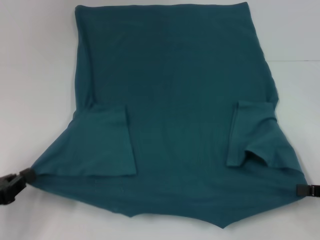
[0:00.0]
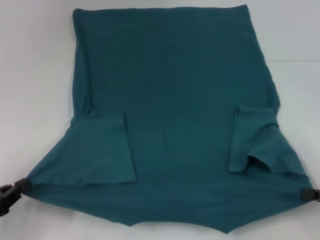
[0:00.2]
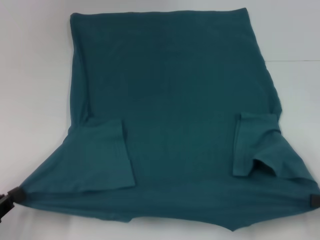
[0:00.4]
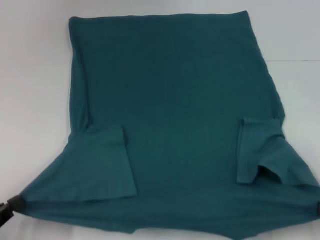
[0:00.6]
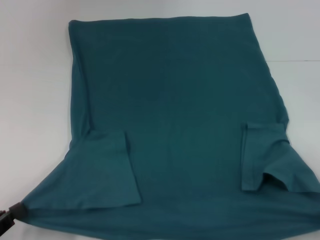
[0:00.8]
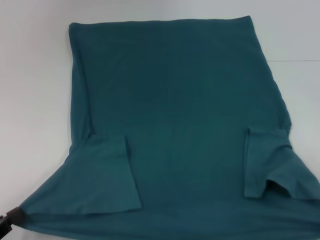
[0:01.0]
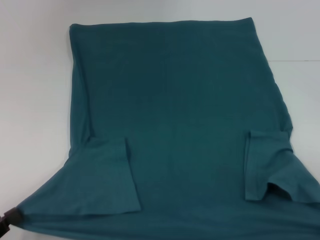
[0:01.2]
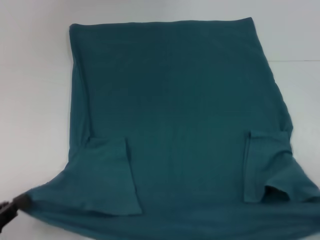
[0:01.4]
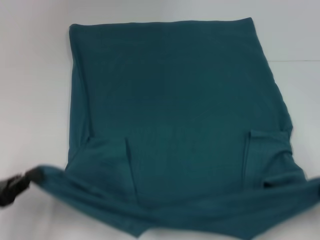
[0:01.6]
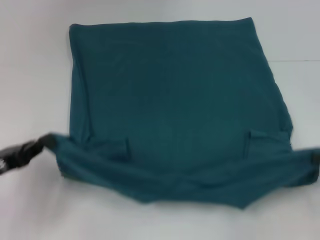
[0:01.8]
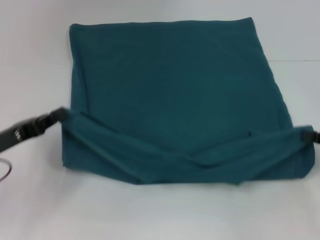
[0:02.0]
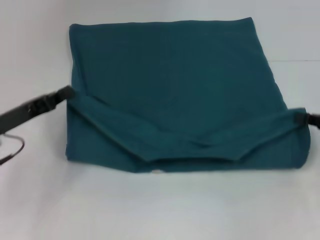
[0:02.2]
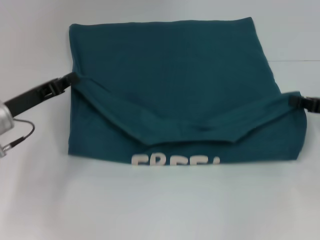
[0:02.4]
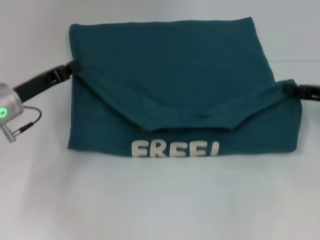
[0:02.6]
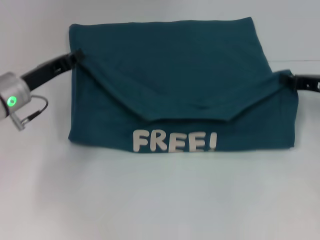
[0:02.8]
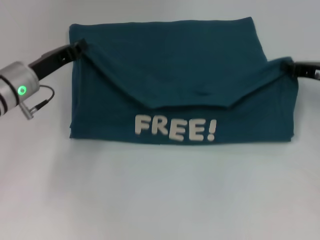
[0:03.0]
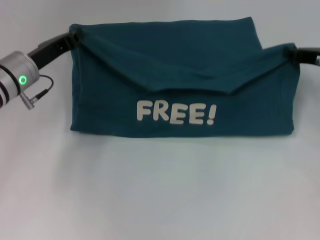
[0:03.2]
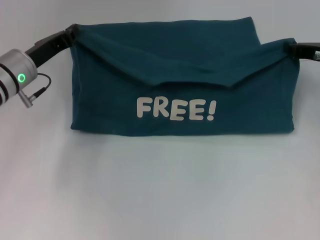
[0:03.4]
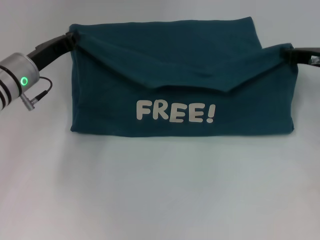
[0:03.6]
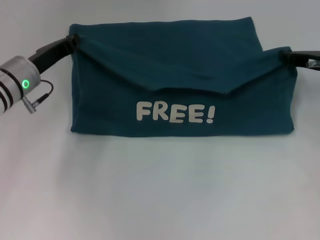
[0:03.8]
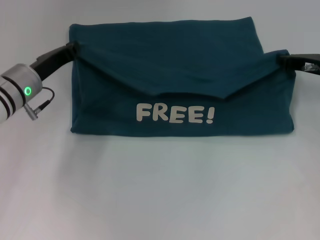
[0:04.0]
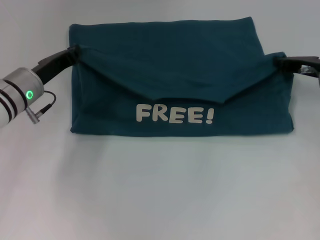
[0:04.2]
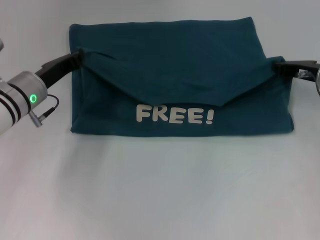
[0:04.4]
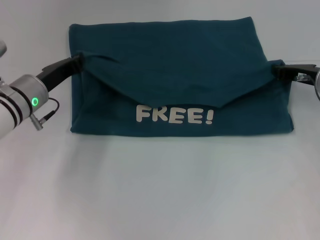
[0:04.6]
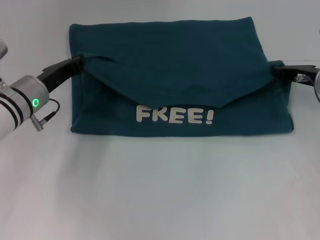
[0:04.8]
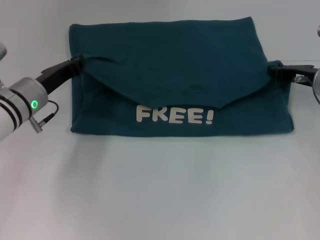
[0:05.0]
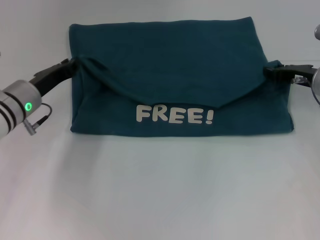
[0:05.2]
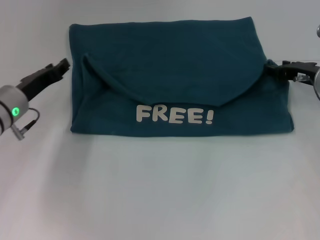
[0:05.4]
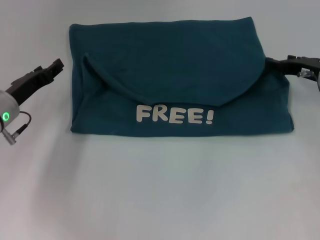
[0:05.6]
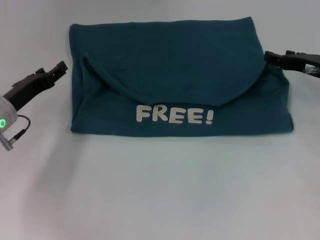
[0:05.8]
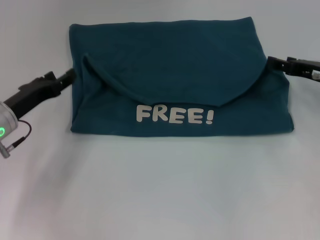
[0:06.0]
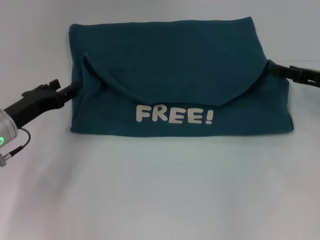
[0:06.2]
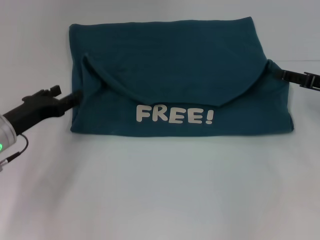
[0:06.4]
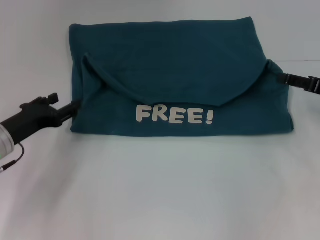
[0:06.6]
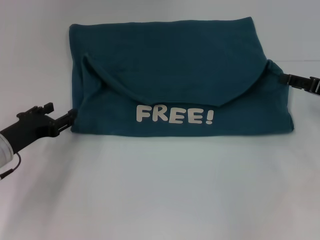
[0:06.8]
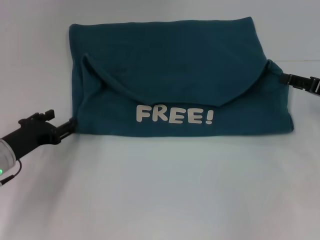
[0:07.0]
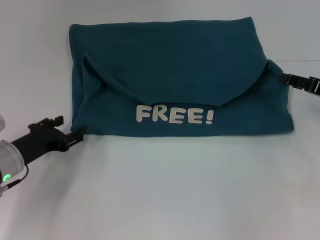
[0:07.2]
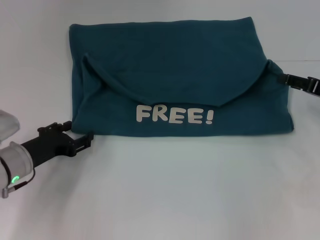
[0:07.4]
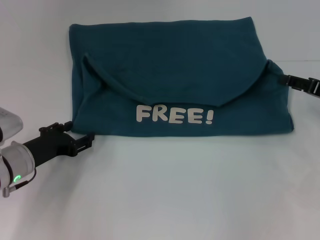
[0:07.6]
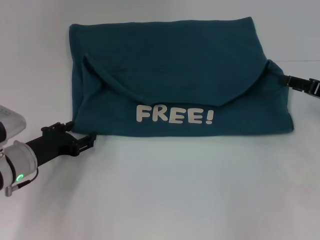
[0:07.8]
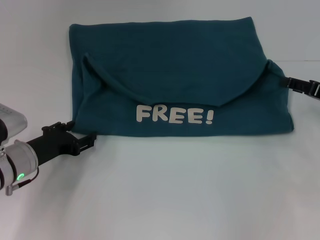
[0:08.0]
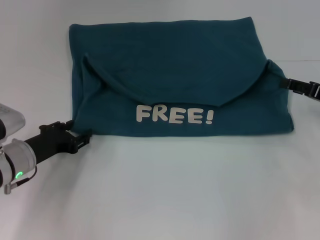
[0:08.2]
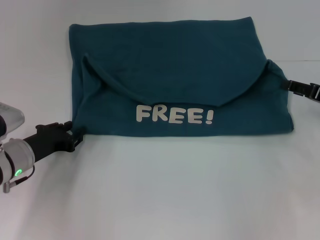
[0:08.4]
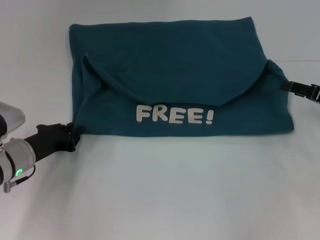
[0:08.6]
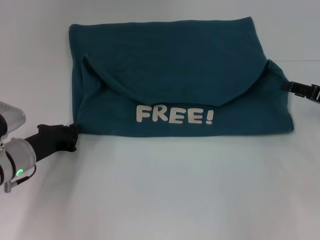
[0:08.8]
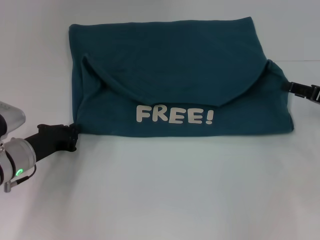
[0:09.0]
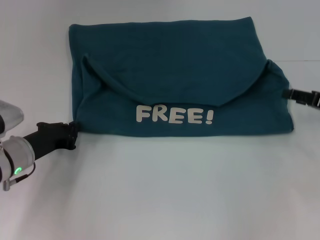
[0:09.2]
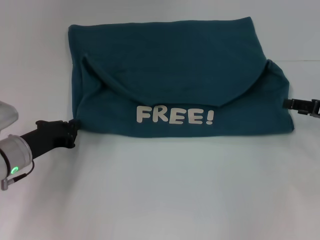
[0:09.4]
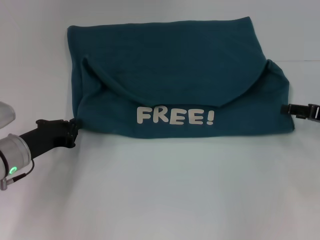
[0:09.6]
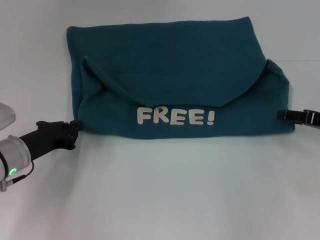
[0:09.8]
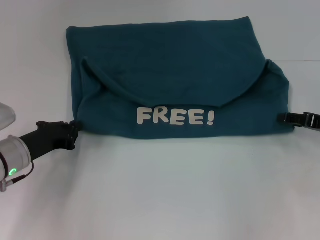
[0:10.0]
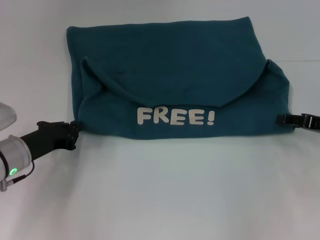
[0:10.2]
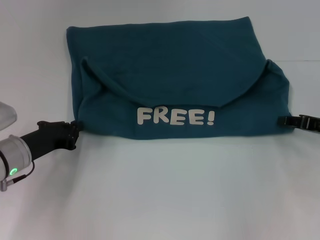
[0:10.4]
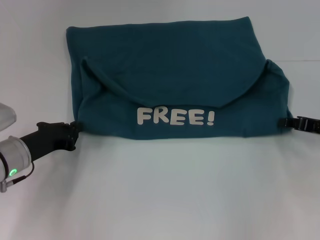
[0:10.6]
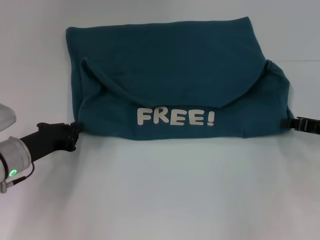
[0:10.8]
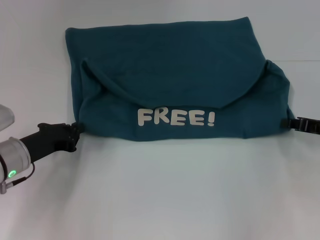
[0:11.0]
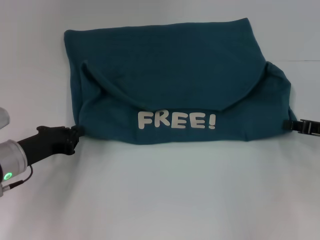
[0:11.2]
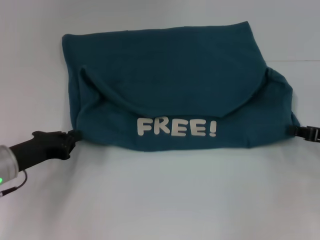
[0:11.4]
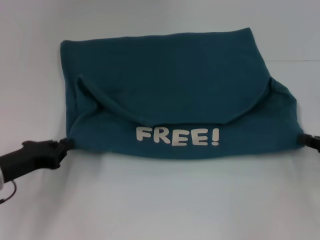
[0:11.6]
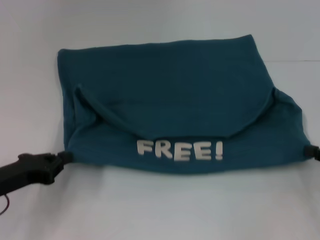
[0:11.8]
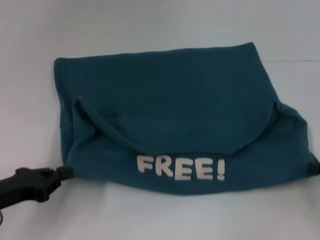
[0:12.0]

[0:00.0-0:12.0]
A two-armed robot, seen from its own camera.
Step, 0:00.0 to 0:05.4: Fold the clothes to the left.
Step, 0:00.0 to 0:05.4: Fold the clothes to the right.
0:00.0 to 0:01.6: The left gripper goes backward and returns, roughly 10 cm each way.
0:01.6 to 0:03.0: The left gripper moves forward and to the right, approximately 25 cm. The right gripper moves forward, about 20 cm.
0:03.0 to 0:04.4: The grippers stay close to where they were, moving slightly.
0:04.4 to 0:06.0: The right gripper opens, while the left gripper ends up approximately 5 cm from where it was, and opens its fingers.
0:06.0 to 0:07.6: The left gripper changes place by some 5 cm. The right gripper ends up approximately 5 cm from where it was.
0:07.6 to 0:09.0: The left gripper closes up.
0:09.0 to 0:10.4: The grippers stay close to where they were, moving slightly.
0:10.4 to 0:12.0: The grippers both shift backward by about 10 cm. The right gripper closes its fingers.

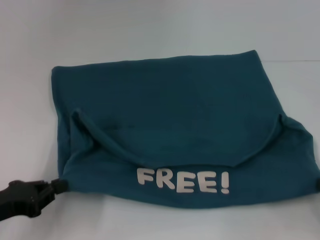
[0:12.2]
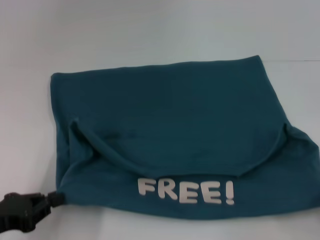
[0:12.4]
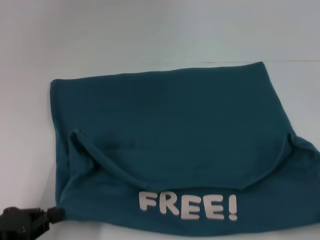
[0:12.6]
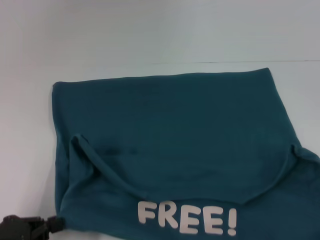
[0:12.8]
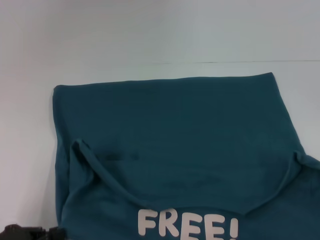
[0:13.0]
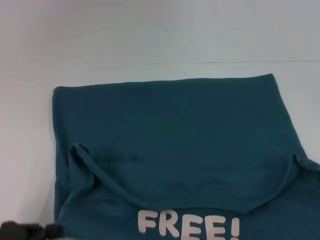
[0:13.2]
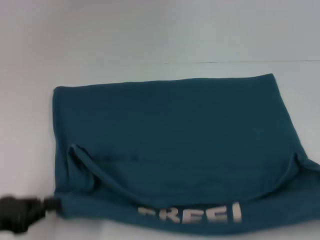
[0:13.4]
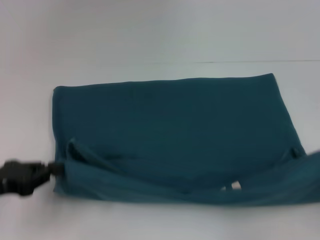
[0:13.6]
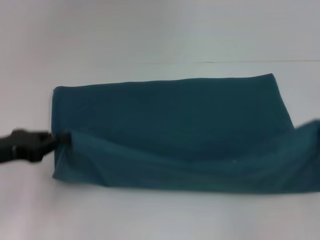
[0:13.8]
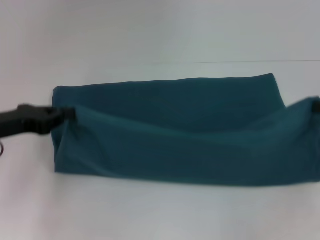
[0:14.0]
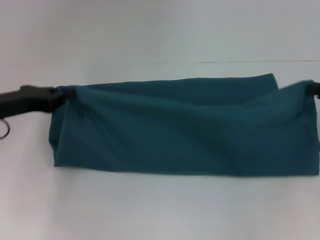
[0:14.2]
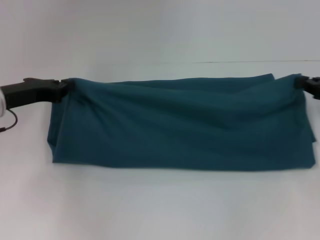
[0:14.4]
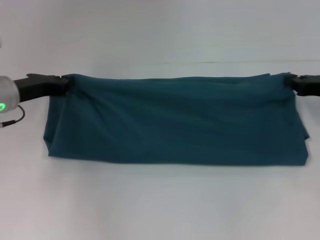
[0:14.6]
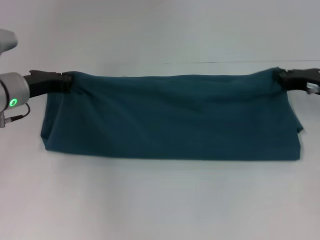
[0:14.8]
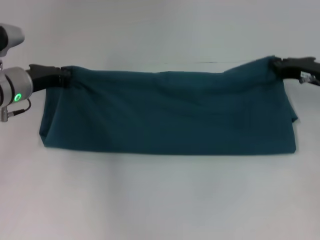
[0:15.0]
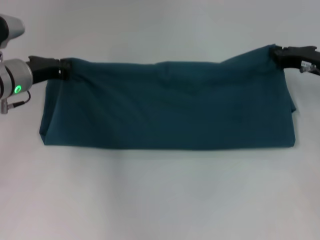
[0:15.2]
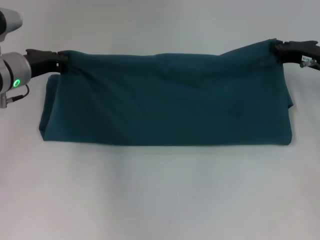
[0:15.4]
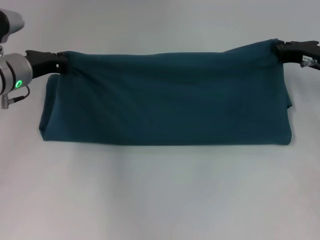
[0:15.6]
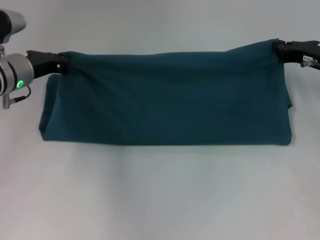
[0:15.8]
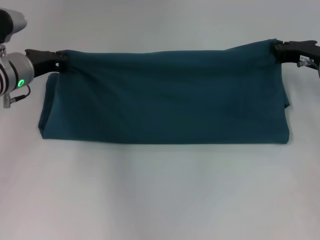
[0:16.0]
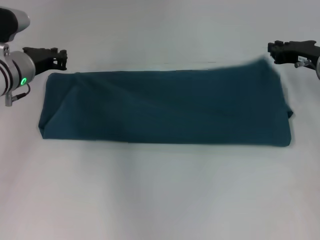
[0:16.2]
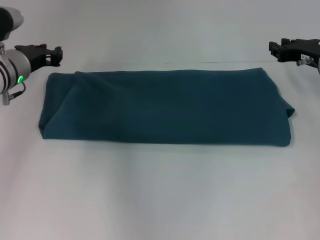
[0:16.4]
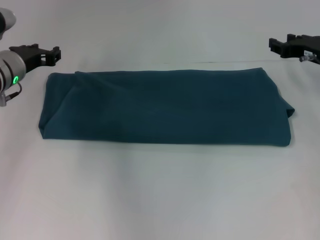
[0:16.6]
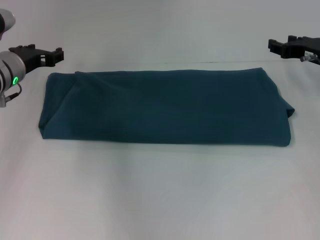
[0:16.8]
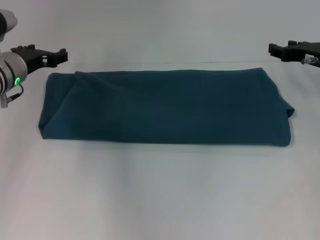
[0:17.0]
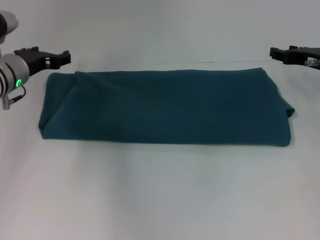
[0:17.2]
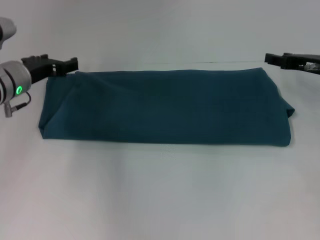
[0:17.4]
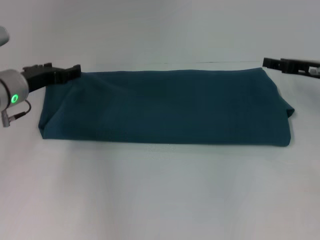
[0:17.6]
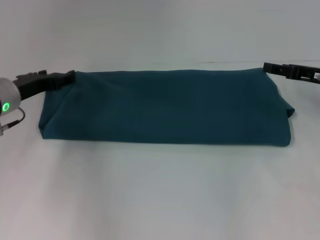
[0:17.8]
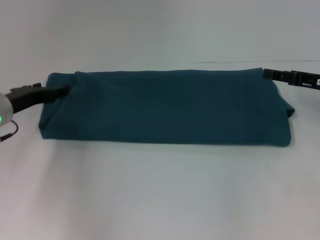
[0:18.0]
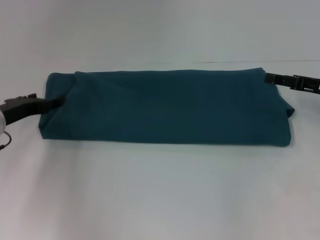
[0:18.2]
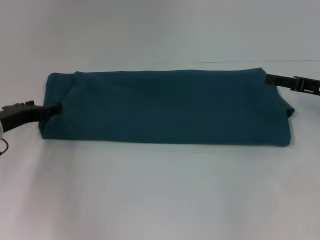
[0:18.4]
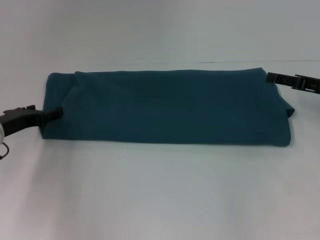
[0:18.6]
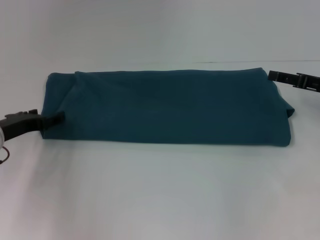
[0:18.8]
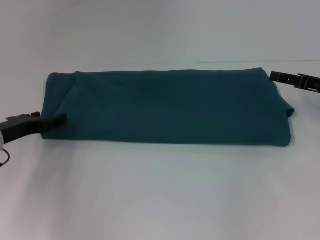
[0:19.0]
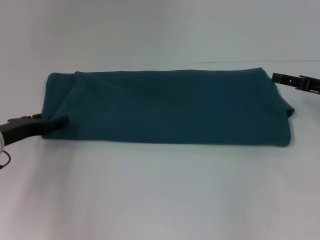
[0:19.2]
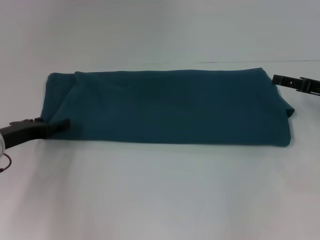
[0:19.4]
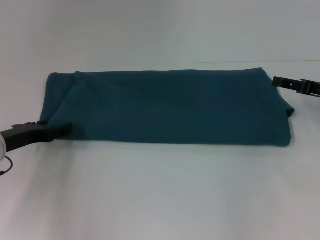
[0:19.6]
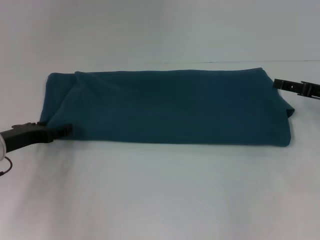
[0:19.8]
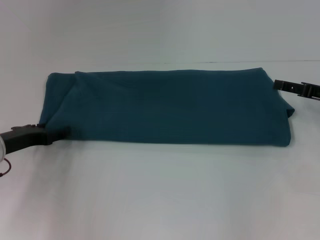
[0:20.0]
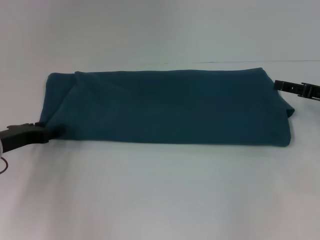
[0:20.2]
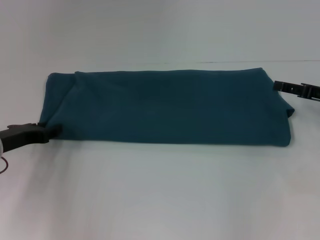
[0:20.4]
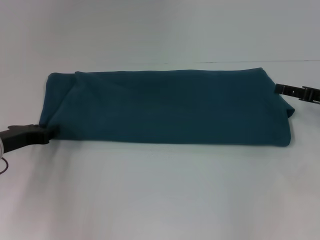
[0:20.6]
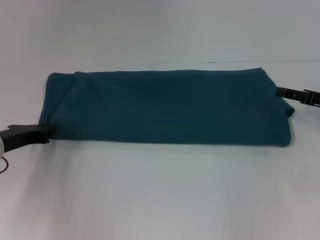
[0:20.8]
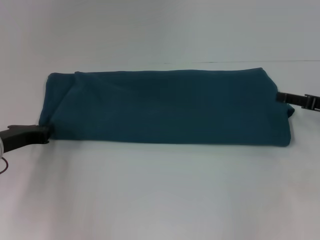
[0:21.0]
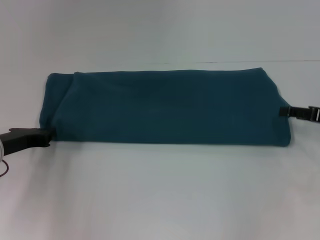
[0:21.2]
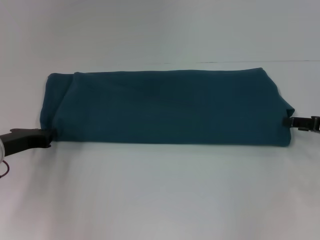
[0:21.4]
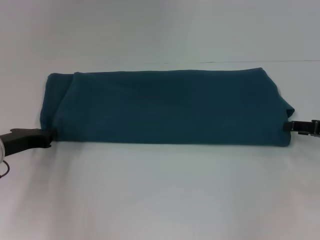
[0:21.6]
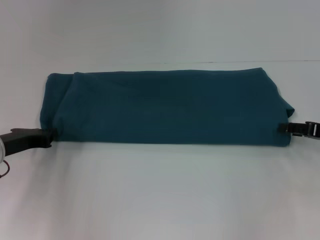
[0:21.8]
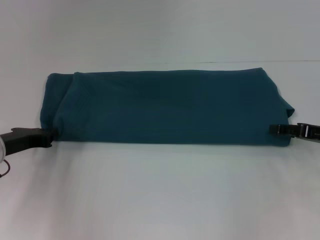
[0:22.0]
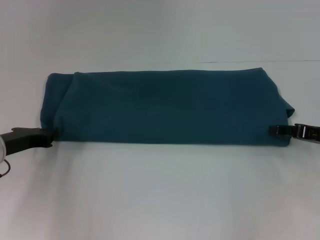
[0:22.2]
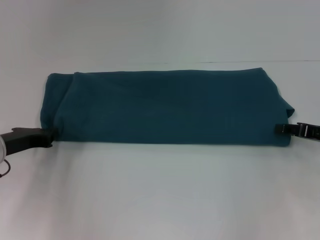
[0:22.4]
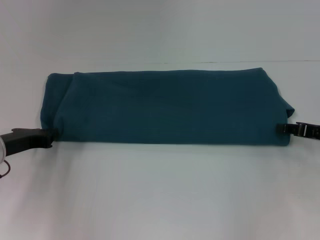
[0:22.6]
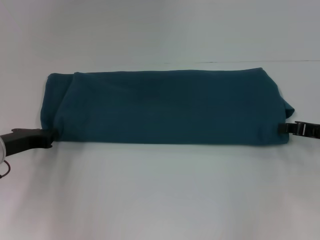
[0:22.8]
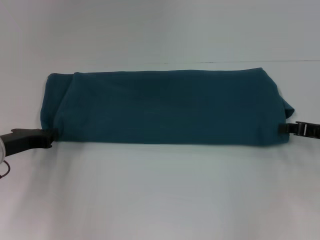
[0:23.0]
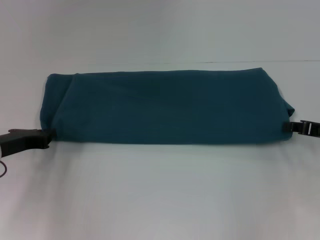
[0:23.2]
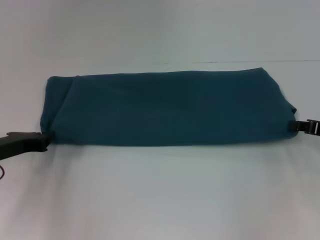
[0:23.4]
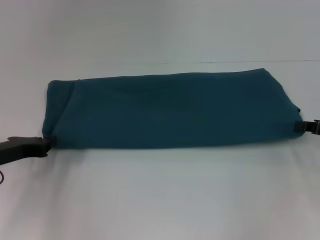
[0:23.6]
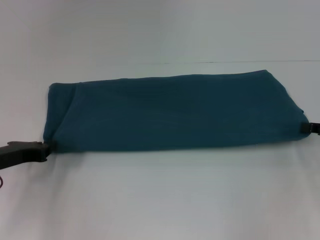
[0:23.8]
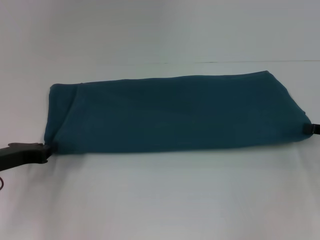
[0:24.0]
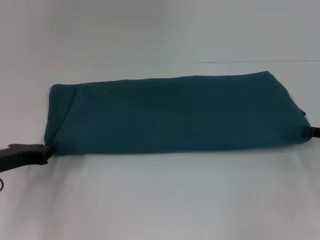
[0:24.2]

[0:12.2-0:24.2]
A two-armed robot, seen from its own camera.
Step, 0:13.2 to 0:16.2: Fold the clothes to the right.
0:12.2 to 0:13.8: The grippers both shift forward by about 5 cm.
0:13.8 to 0:15.2: The right gripper goes approximately 20 cm forward and to the left, while the left gripper is displaced forward and to the right by about 15 cm.
0:15.2 to 0:16.6: The right gripper opens. The left gripper opens its fingers.
0:16.6 to 0:18.2: The grippers both shift backward by about 5 cm. The left gripper opens up. The right gripper opens.
0:18.2 to 0:19.8: There are only small adjustments of the grippers.
0:19.8 to 0:21.2: The left gripper closes its fingers.
0:21.2 to 0:22.6: The right gripper closes its fingers.
0:22.6 to 0:24.2: The right gripper closes up.
